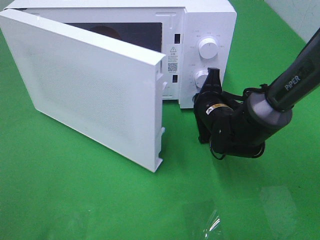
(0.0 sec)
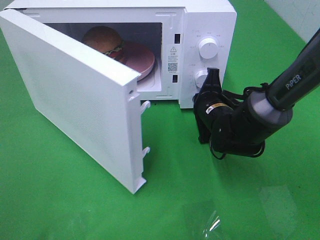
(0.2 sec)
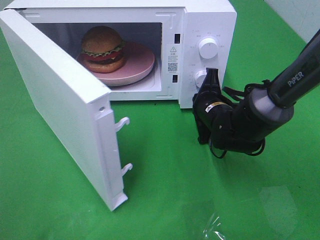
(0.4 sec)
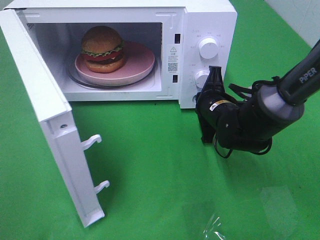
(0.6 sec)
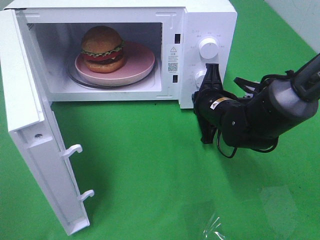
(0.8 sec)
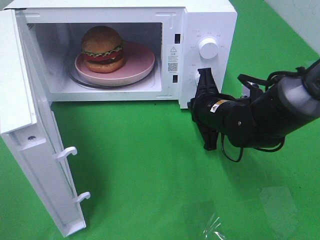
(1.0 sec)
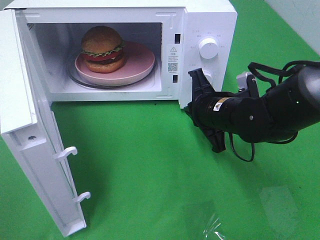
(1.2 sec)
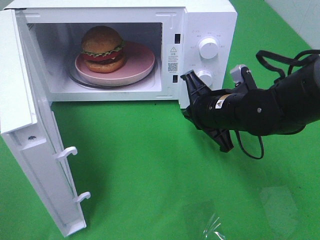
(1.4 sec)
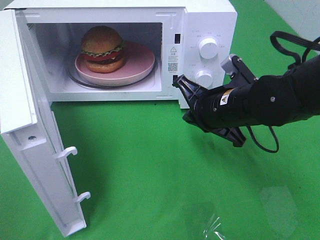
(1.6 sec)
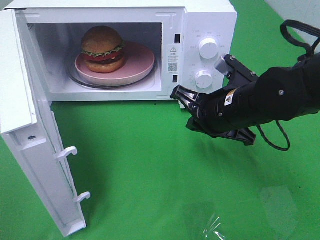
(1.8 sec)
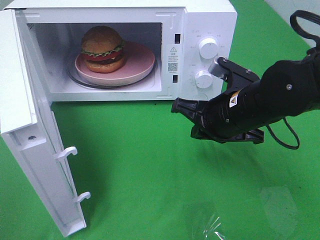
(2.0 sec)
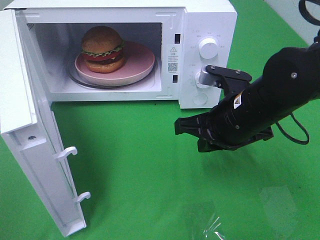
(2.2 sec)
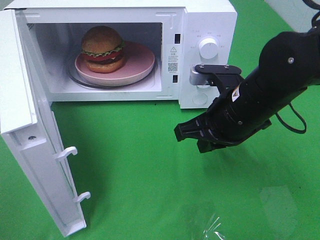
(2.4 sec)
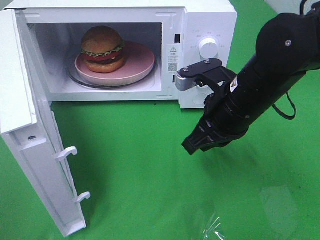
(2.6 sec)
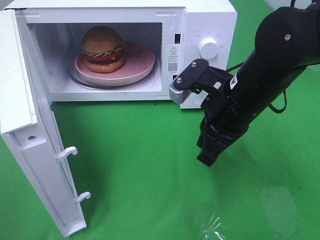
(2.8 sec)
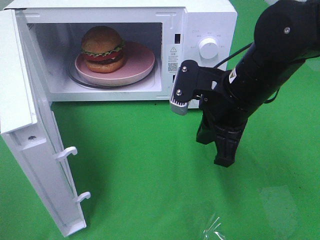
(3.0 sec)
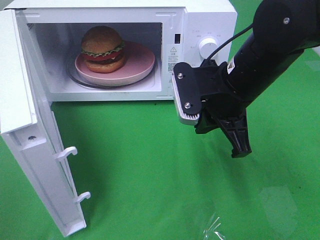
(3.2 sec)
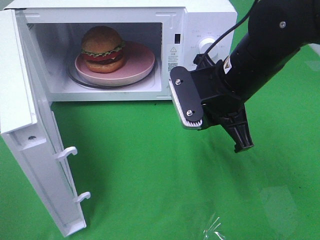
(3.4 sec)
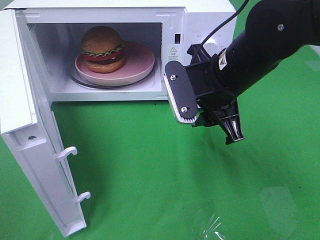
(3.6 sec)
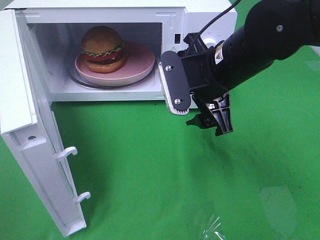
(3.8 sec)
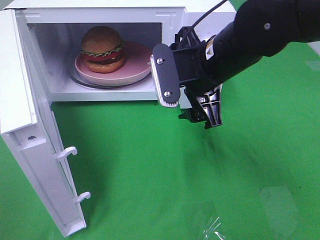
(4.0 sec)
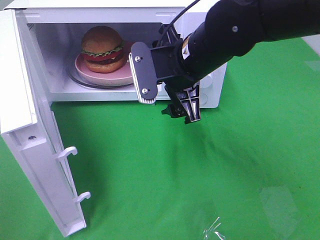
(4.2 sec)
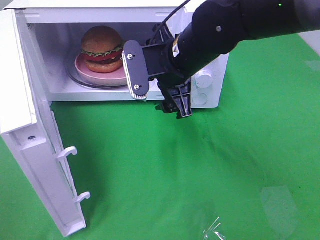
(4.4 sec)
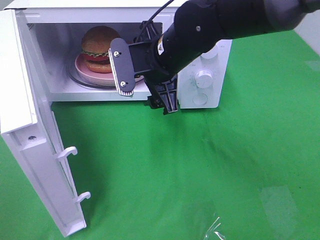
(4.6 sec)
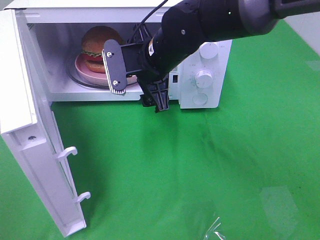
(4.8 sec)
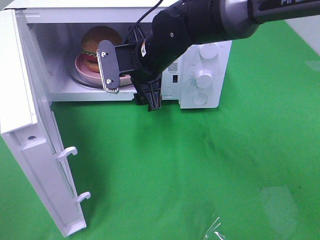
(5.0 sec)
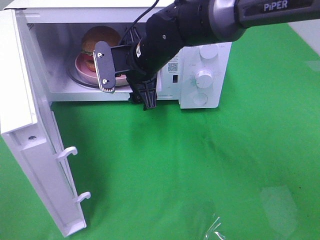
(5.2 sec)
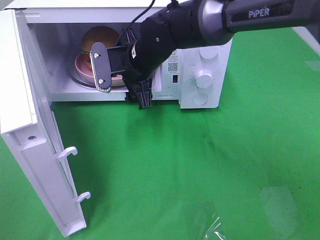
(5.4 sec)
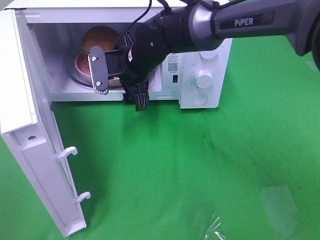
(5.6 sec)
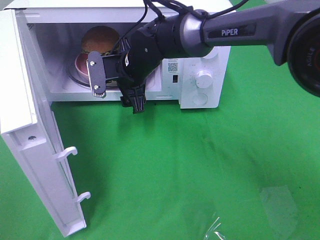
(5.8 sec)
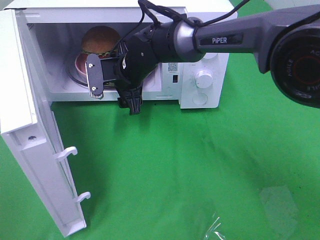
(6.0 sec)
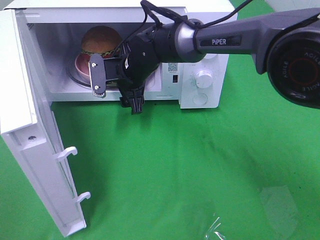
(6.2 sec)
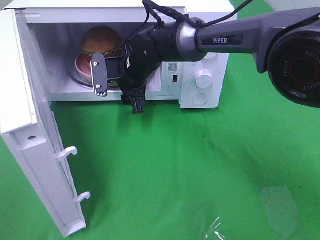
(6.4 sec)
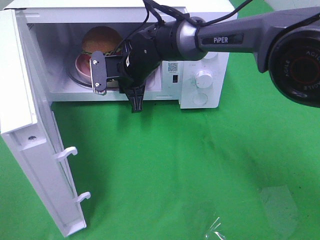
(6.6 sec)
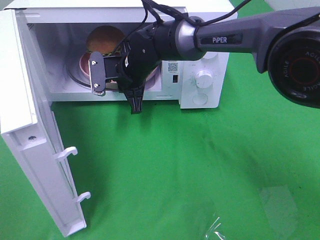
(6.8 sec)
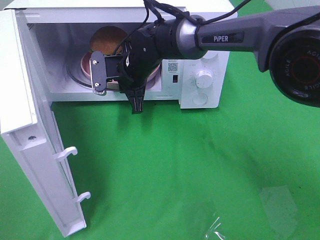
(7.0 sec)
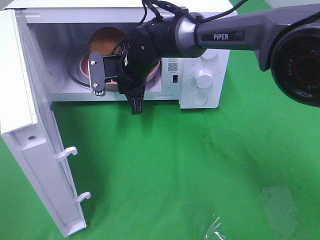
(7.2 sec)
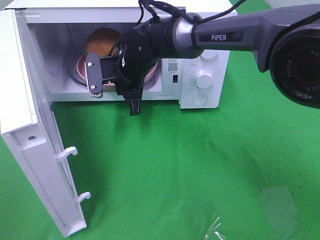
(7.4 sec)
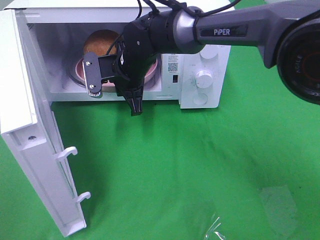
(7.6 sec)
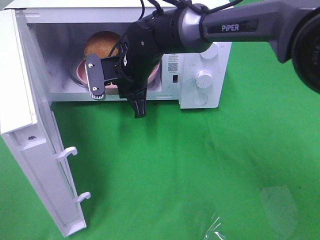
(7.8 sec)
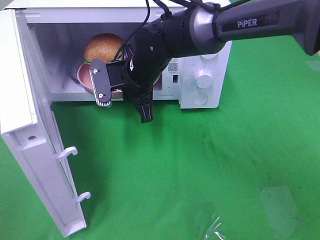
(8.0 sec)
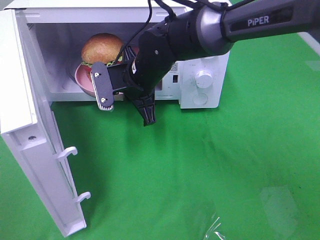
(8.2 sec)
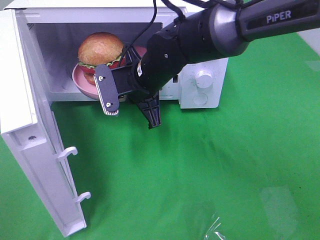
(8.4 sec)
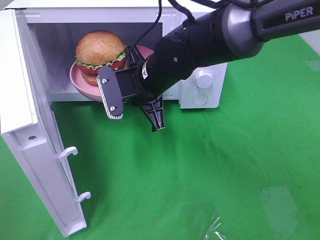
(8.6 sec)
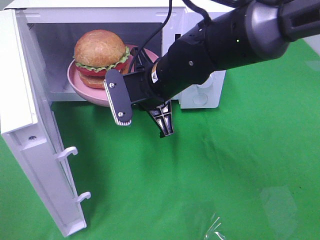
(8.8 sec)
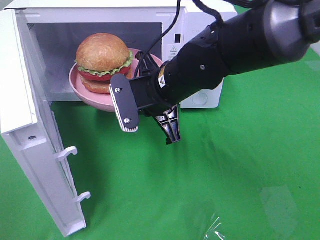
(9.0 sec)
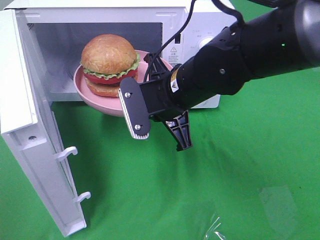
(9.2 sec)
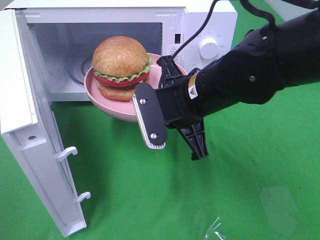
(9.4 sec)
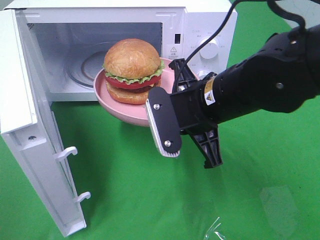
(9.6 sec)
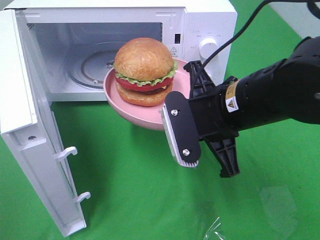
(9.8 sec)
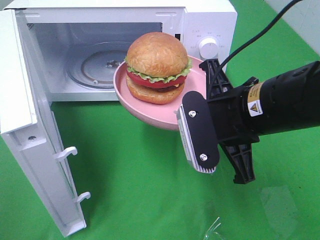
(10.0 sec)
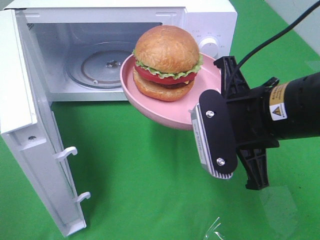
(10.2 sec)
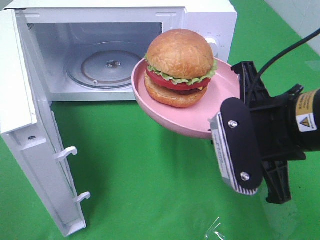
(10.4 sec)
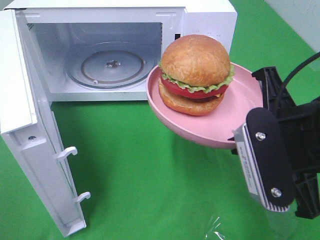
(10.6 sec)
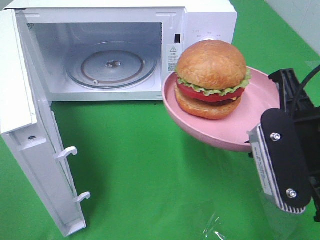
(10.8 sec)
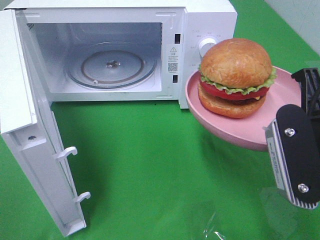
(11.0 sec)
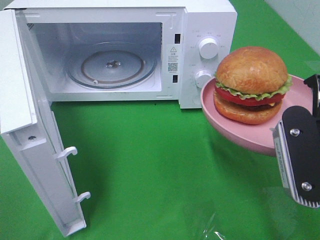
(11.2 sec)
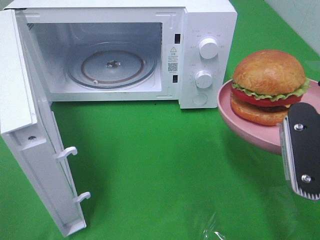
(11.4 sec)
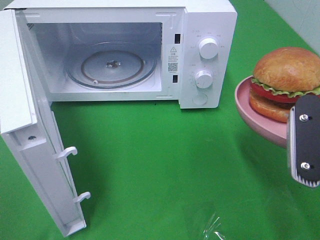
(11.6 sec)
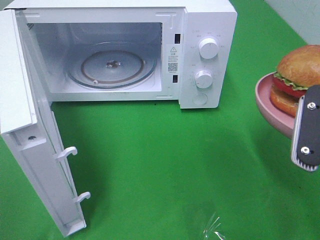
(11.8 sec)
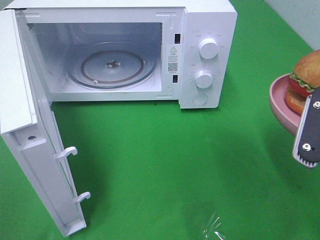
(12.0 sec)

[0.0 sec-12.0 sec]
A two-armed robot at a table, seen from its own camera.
Task of the whole recording: Heat the burger.
Step, 1.6 sec to 7.4 sec: Right hand: grab the plate with the hamburger.
0.0 sec to 1.6 sec: The right gripper shifts approximately 10 cm upward and backward.
1.6 sec to 3.0 sec: The right gripper travels upward by roughly 5 cm.
3.0 sec to 4.4 sec: The right gripper travels to the left and forward by about 10 cm, and opens.
4.4 sec to 6.0 sec: The right gripper goes approximately 15 cm forward, to the left and downward.
6.0 sec to 7.6 sec: The right gripper closes its fingers.
7.6 sec to 9.0 sec: The right gripper moves backward and to the right, about 15 cm.
9.0 sec to 10.4 sec: The right gripper goes some 15 cm backward and to the right.
10.4 sec to 12.0 sec: The right gripper is displaced to the right by approximately 10 cm.

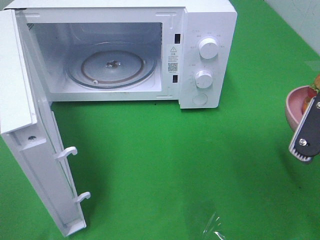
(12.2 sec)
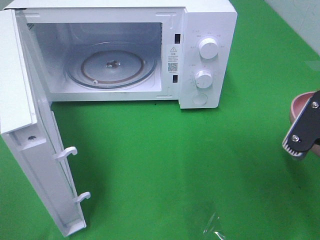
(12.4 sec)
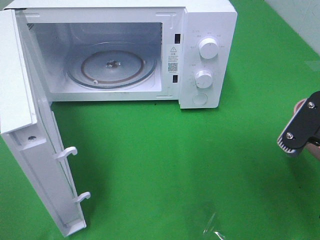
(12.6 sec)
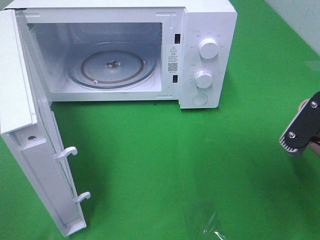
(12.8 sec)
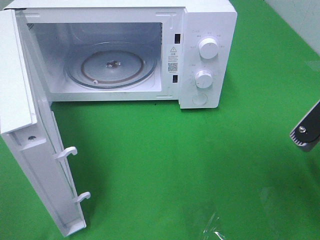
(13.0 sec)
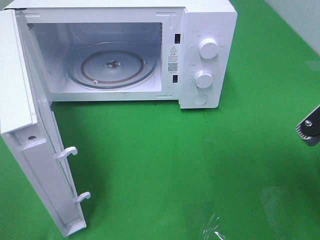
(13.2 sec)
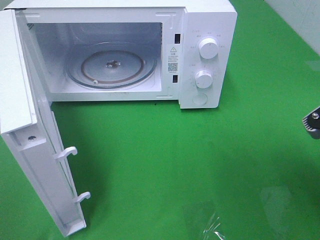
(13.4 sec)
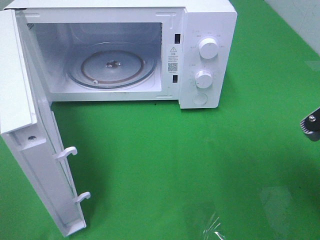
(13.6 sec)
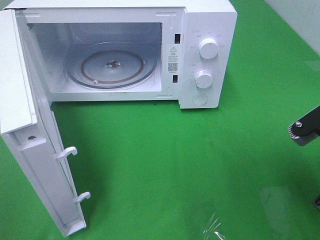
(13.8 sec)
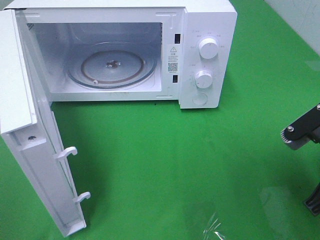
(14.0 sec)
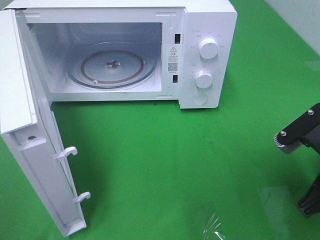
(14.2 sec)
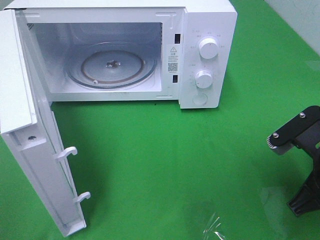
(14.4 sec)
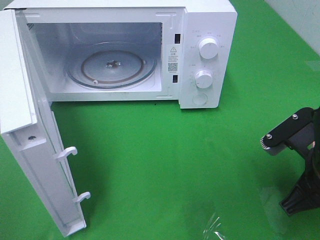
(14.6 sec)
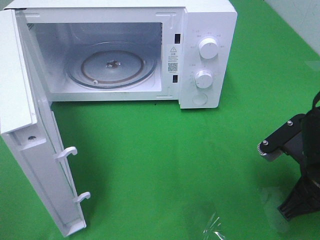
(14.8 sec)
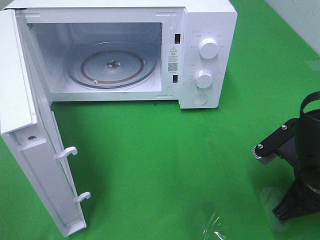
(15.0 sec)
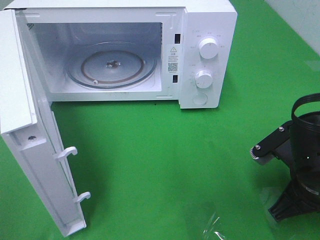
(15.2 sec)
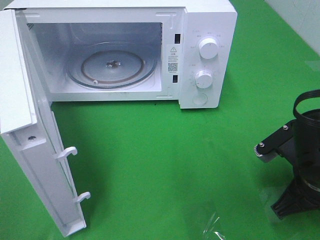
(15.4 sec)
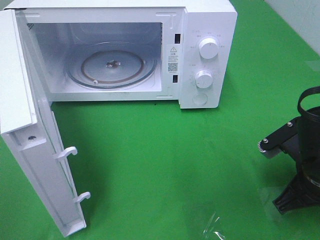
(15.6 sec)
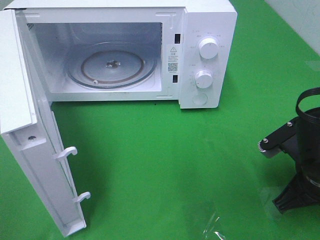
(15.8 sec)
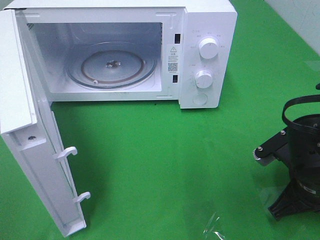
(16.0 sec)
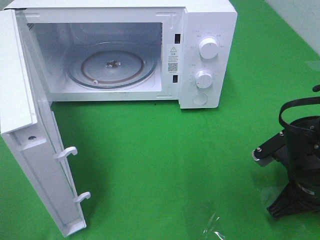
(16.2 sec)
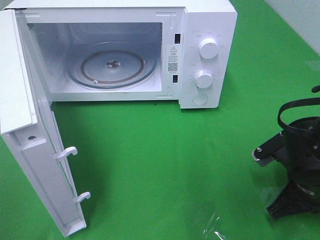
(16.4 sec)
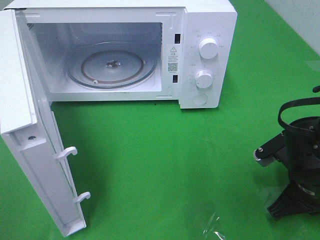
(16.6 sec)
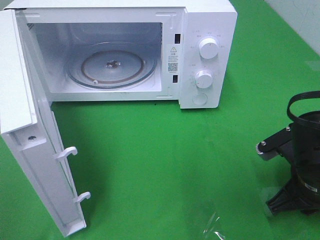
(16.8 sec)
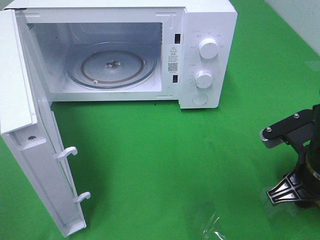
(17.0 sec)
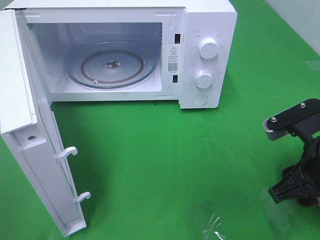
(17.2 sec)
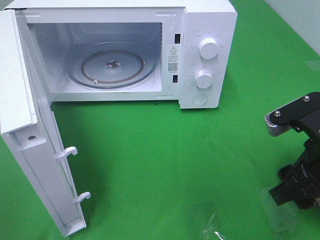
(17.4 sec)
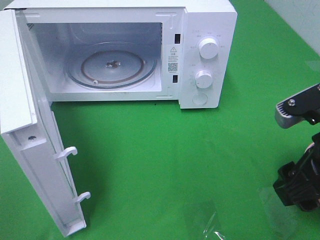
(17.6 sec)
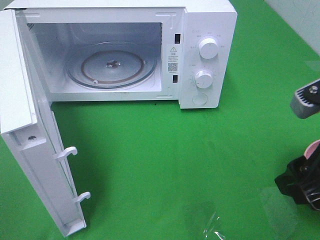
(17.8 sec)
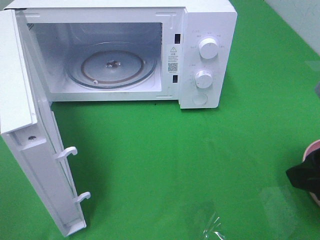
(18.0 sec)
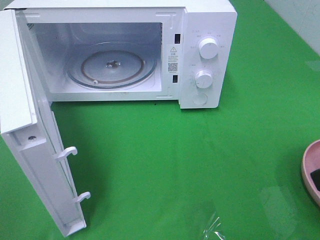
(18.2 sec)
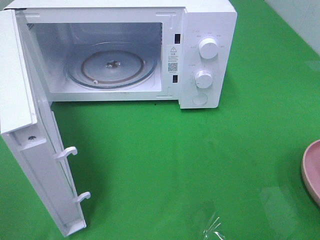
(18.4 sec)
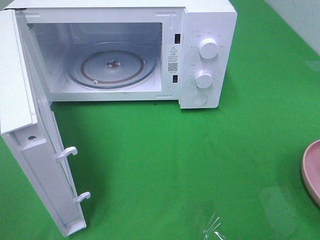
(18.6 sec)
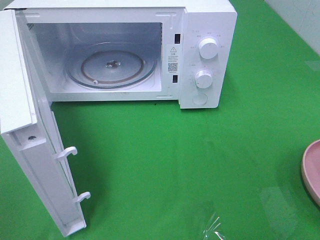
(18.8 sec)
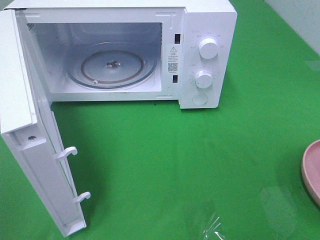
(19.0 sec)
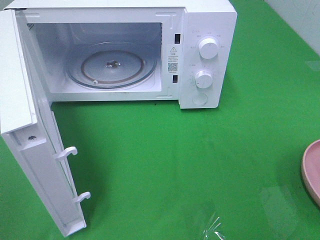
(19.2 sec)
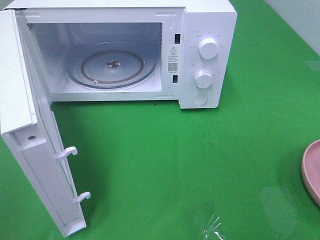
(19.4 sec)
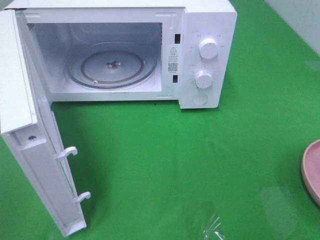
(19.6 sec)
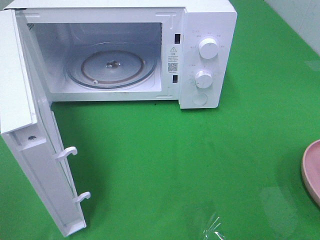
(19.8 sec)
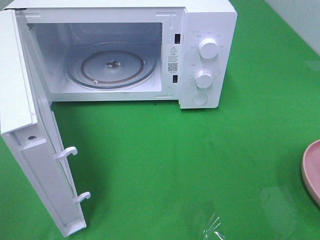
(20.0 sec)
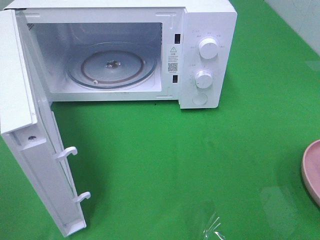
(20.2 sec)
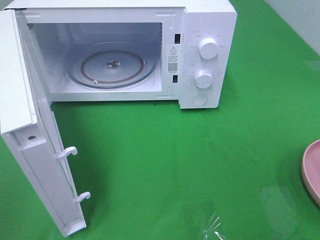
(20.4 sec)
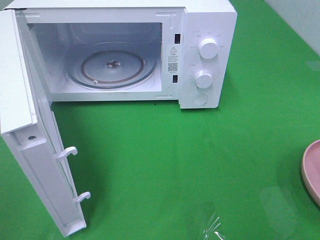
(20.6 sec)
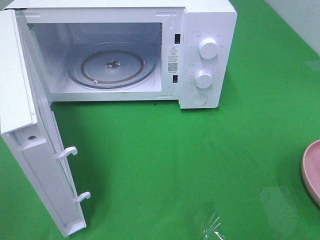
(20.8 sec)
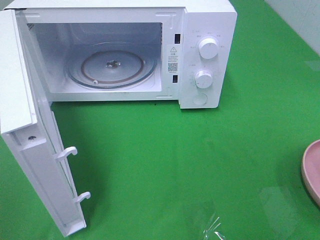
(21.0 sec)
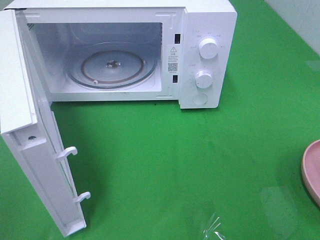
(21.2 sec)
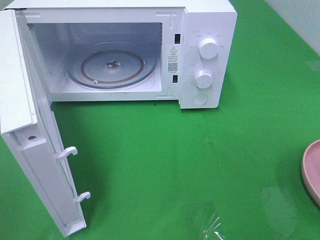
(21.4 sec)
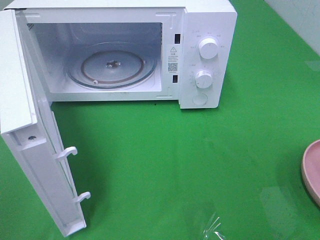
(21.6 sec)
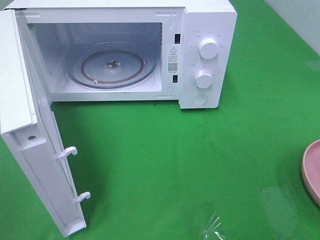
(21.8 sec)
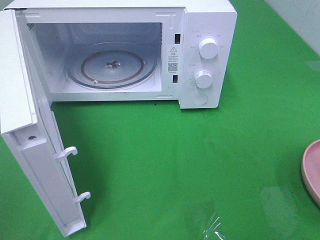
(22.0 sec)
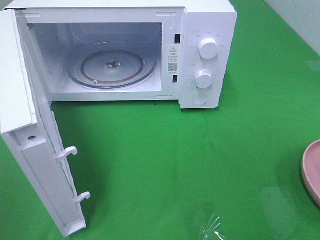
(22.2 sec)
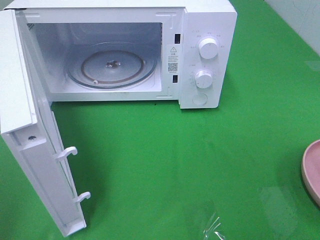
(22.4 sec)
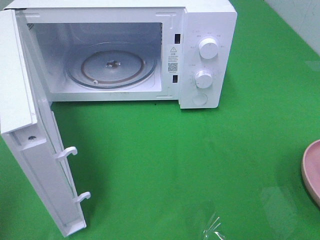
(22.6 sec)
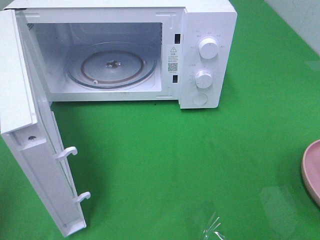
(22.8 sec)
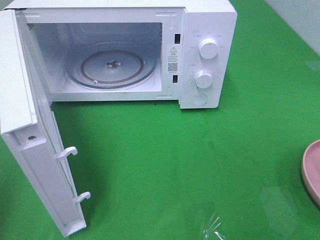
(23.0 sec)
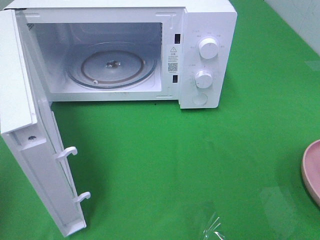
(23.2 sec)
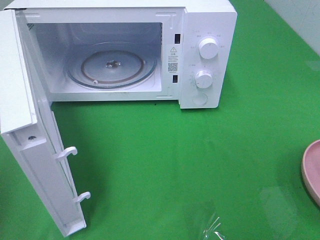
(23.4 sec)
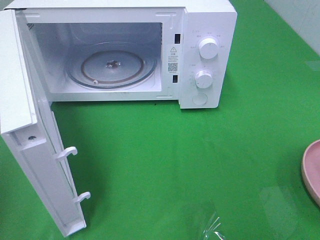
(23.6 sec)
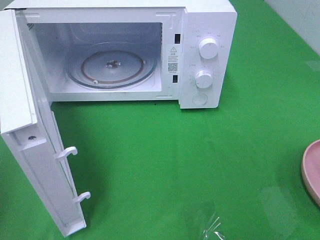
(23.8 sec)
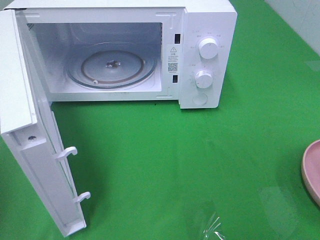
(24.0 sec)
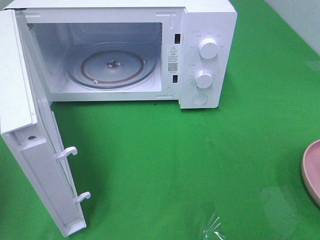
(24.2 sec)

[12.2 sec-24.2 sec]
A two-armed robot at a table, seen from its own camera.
Task of the whole recording: Heat the burger.
Step, 12.2 sec to 18.4 sec: Right hand: place the plate on the table.
13.8 sec to 15.2 sec: The right gripper heads downward, covering some 5 cm.
15.2 sec to 16.6 sec: The grippers stay close to where they were, moving slightly.
16.6 sec to 18.2 sec: The right gripper shifts approximately 20 cm upward and backward, and opens.
19.8 sec to 21.2 sec: Both grippers stay put.
